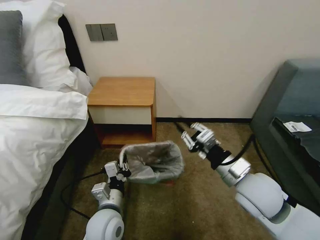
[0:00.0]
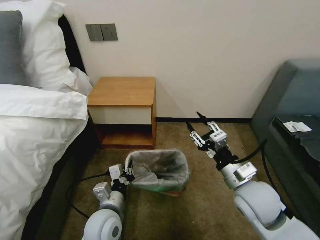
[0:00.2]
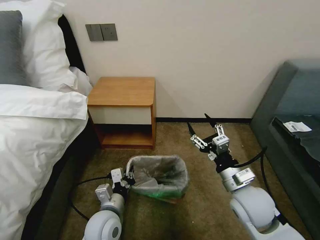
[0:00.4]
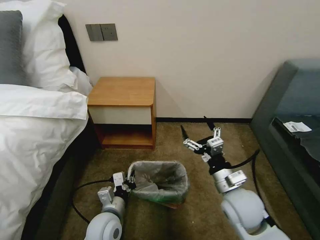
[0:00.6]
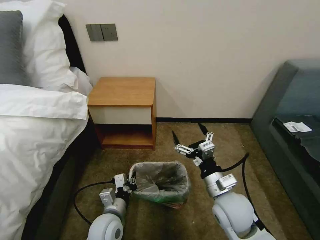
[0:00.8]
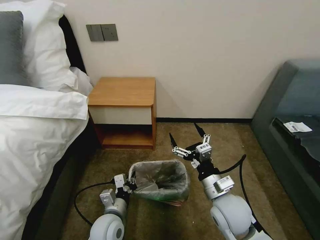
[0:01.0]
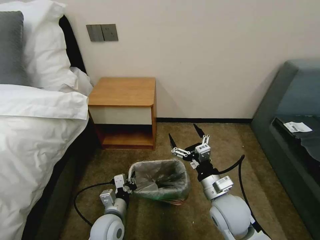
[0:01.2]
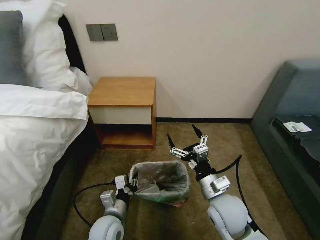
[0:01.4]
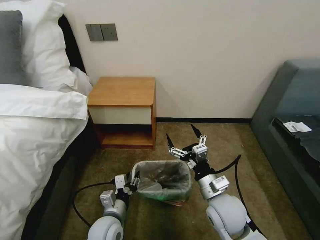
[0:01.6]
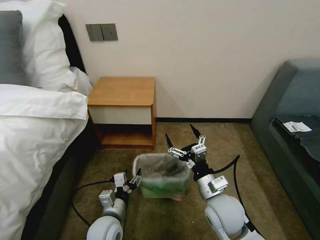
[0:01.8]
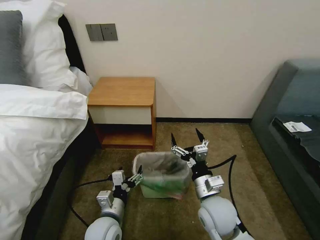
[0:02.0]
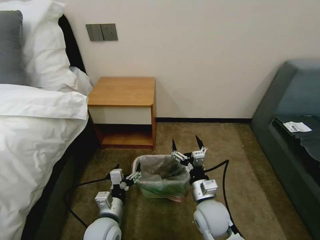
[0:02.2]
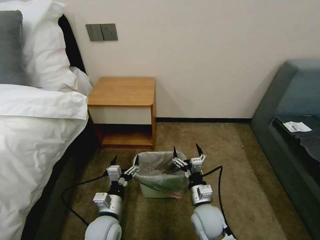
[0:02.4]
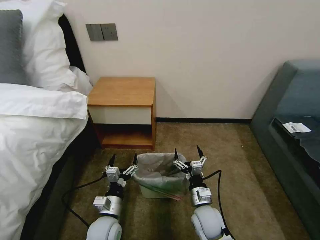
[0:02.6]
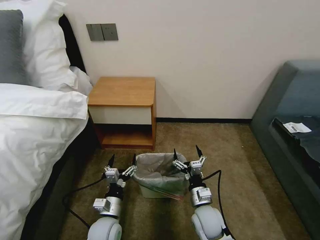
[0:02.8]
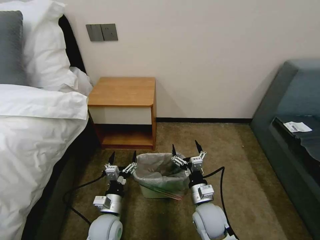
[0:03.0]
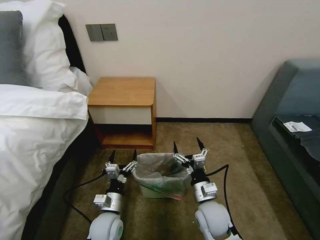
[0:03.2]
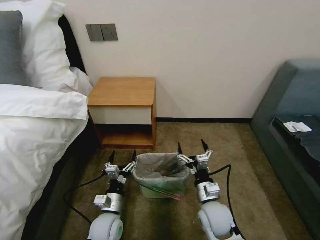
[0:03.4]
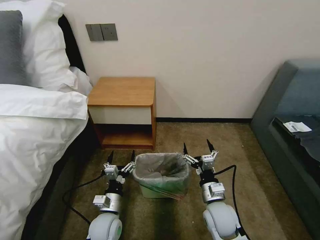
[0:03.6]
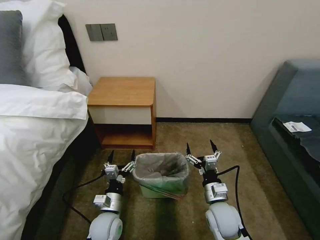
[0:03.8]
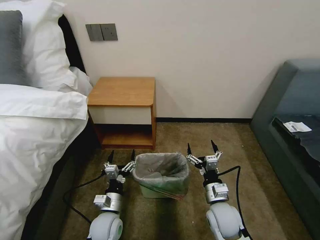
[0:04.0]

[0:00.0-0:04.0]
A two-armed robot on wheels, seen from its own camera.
Task of the whole recording: Pick up the garbage bag from the table and place it over the trash can.
0:00.0 to 0:01.4: The right gripper shifts some 10 cm downward and to the left, and opens its fingers. Meanwhile the left gripper moves downward, approximately 5 cm.
0:01.4 to 0:02.6: The right gripper goes about 15 cm downward, while the left gripper opens its fingers.
0:02.6 to 0:04.0: The right gripper changes place by about 5 cm.
